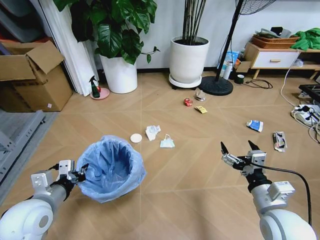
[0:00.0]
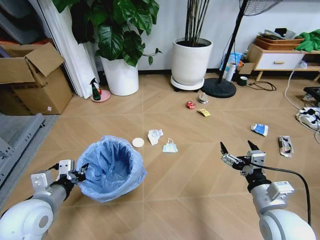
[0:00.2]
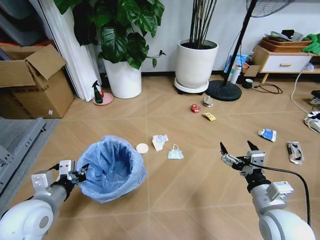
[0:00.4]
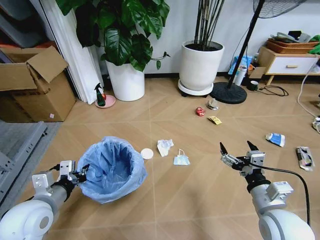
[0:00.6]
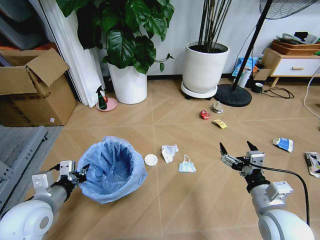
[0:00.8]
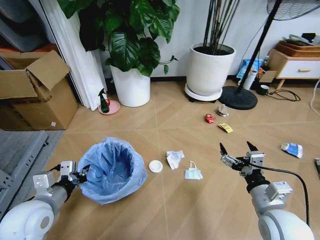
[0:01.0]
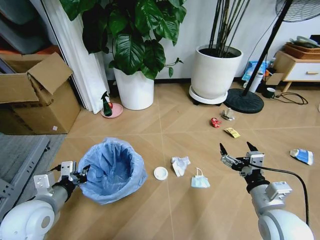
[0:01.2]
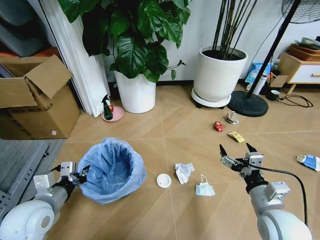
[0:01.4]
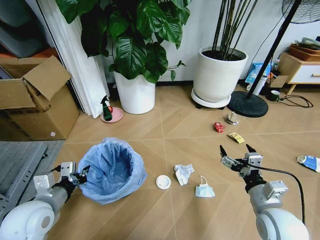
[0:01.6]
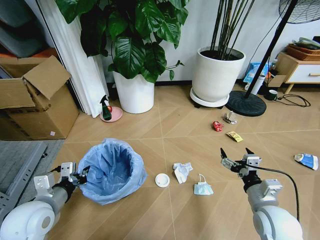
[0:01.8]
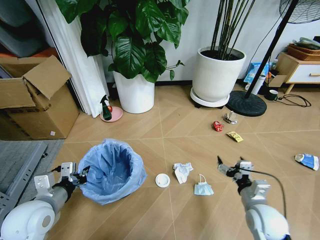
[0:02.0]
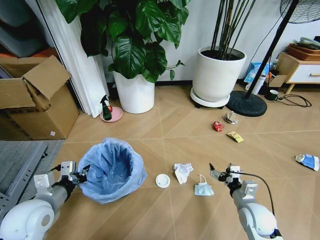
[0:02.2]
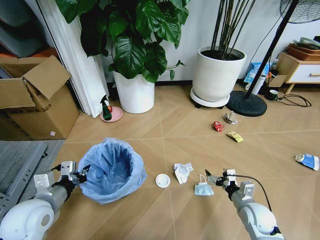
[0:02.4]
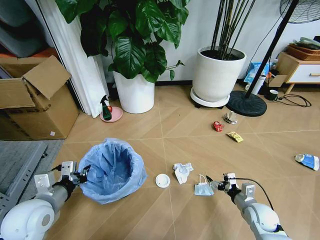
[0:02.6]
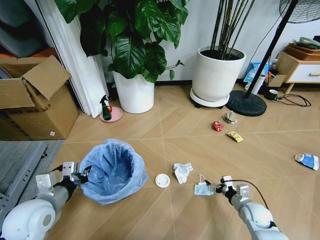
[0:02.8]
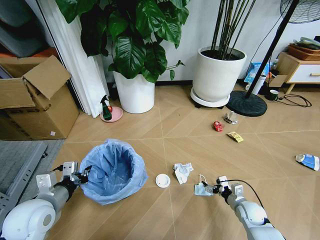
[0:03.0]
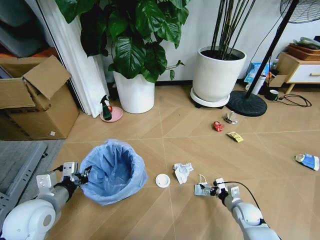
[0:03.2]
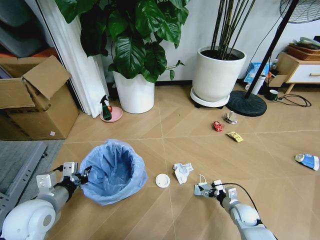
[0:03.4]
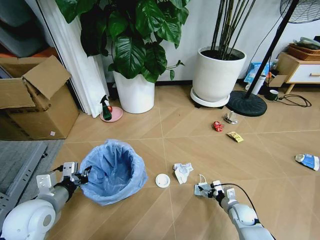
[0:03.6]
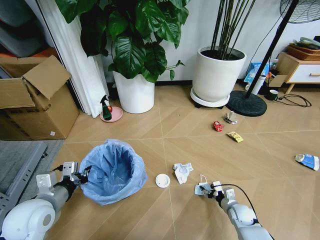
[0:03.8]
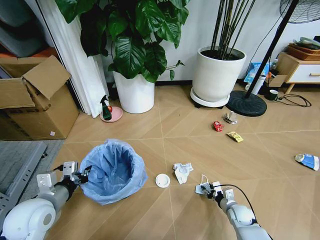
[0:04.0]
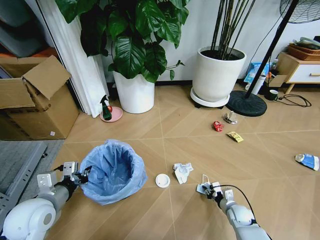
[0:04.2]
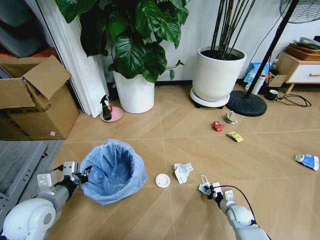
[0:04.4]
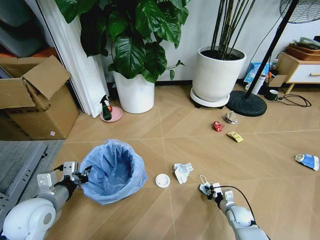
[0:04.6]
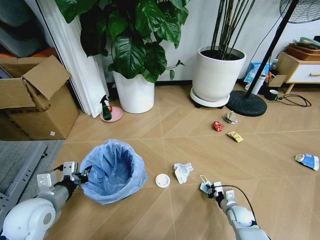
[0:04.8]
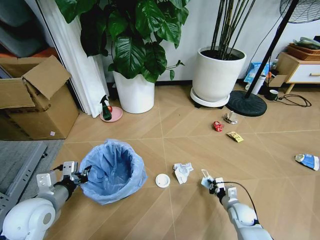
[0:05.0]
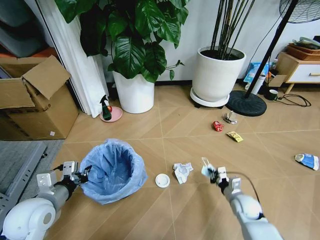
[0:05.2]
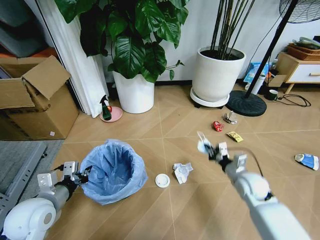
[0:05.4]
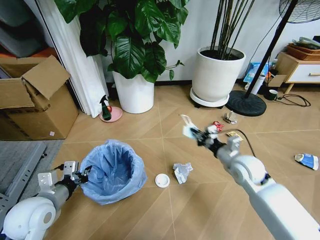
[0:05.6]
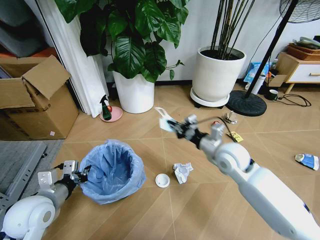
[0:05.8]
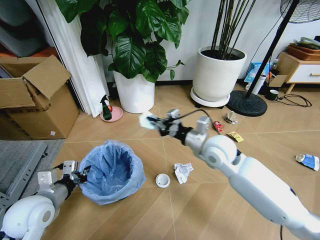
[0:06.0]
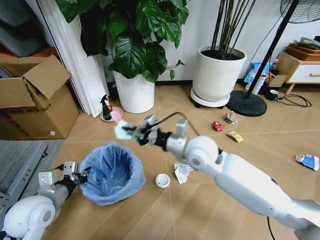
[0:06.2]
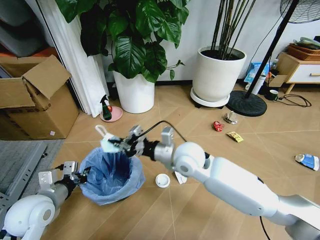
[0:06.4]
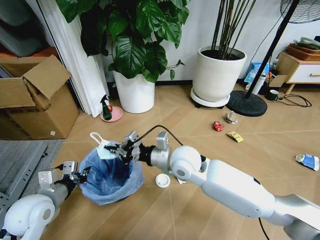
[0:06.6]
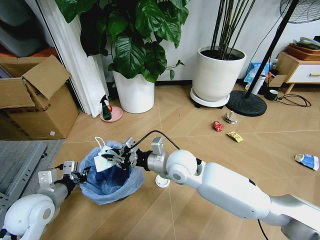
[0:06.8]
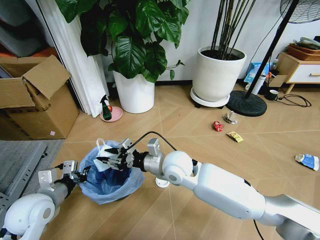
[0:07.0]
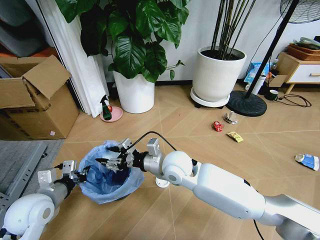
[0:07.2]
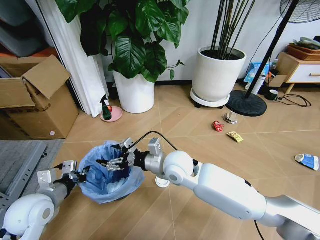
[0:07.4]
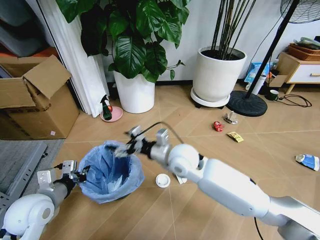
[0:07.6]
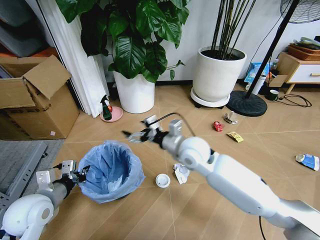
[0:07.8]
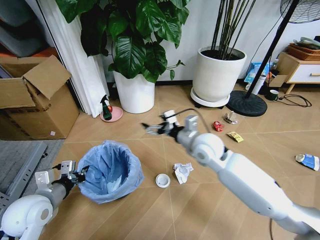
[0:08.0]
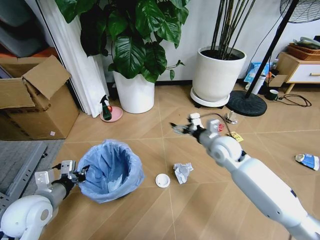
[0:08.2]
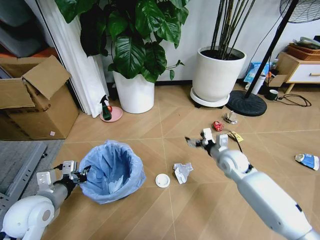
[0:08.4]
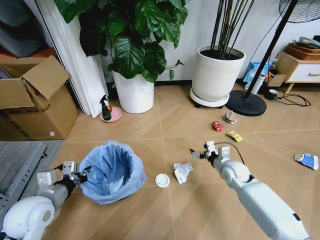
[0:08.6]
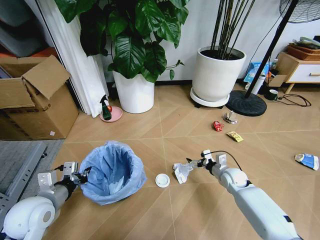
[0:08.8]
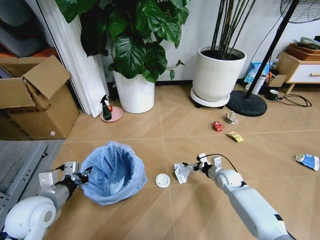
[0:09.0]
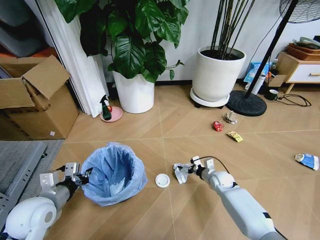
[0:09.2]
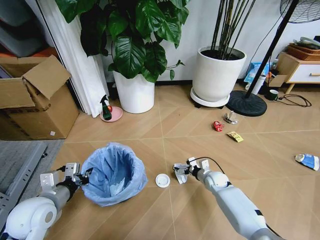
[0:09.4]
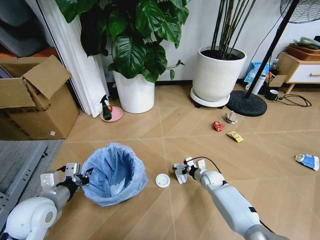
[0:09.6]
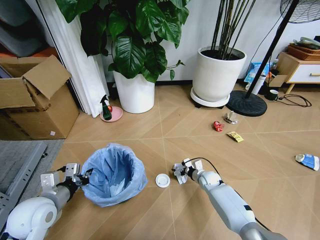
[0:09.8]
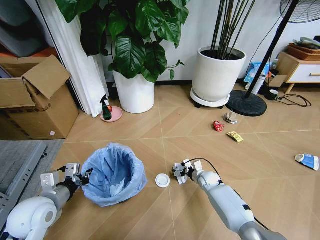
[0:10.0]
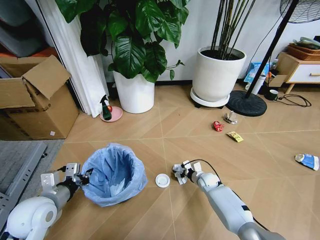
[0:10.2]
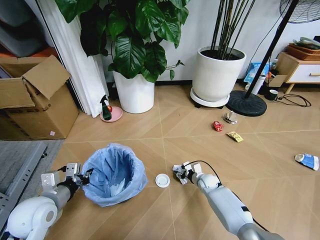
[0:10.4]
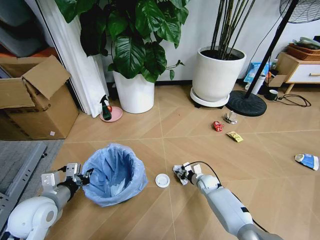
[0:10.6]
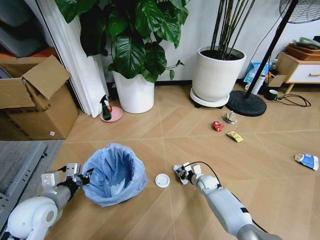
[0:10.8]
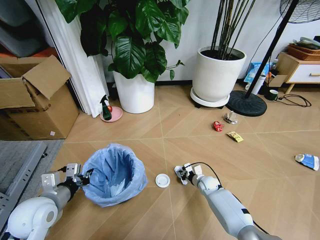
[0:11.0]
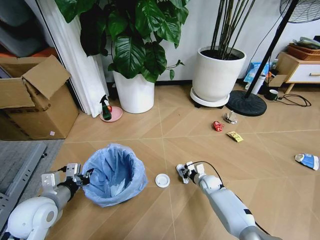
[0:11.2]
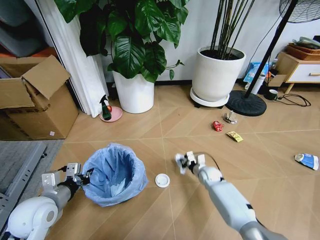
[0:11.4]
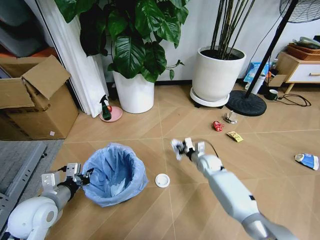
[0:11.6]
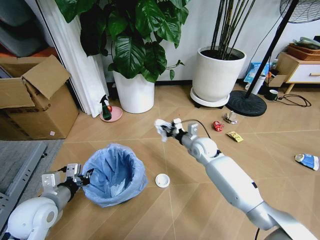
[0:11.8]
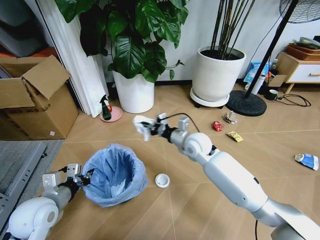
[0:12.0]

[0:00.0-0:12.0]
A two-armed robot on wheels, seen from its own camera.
Task of the whole recording: Pick up the trash bin and place the garbage on the floor into it.
0:01.6 to 0:03.0: The right gripper heads downward and forward, covering approximately 25 cm.
0:03.0 to 0:04.4: The right gripper travels downward by some 5 cm, and closes its fingers.
0:04.4 to 0:06.0: The right gripper shifts some 40 cm upward and to the left.
0:06.0 to 0:07.6: The right gripper moves to the left, about 10 cm, and opens.
0:07.6 to 0:09.0: The right gripper is displaced to the right and downward by about 35 cm.
0:09.0 to 0:10.4: The right gripper travels to the left and downward by approximately 10 cm, and closes up.
0:10.4 to 0:12.0: The right gripper moves upward, some 25 cm, and closes.

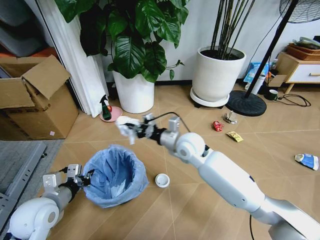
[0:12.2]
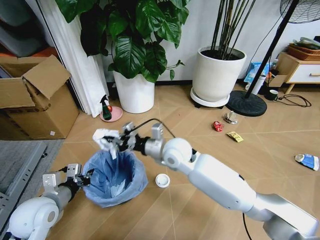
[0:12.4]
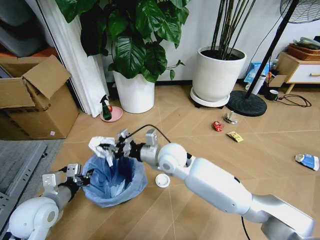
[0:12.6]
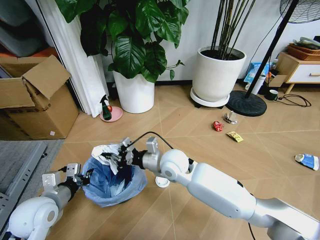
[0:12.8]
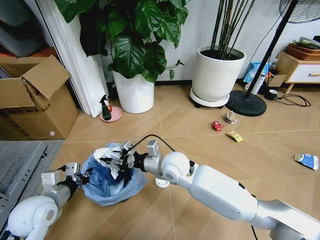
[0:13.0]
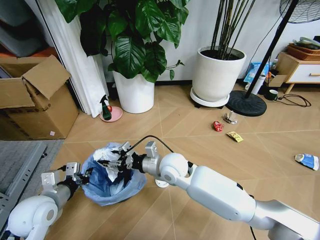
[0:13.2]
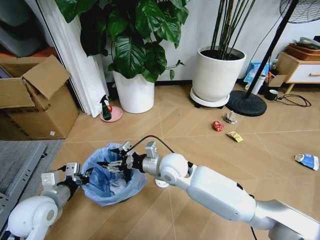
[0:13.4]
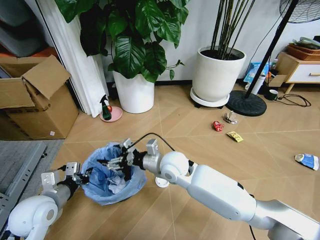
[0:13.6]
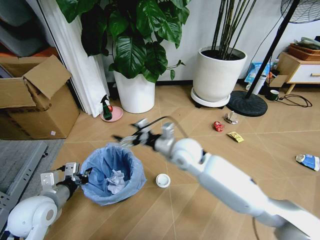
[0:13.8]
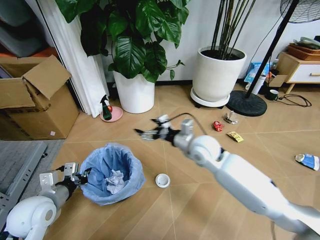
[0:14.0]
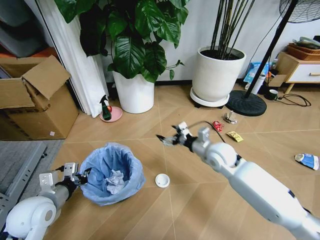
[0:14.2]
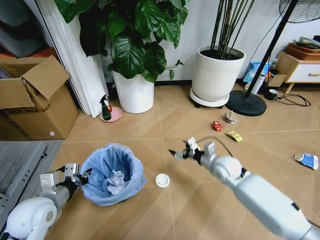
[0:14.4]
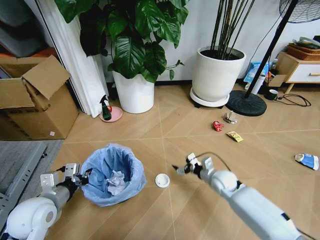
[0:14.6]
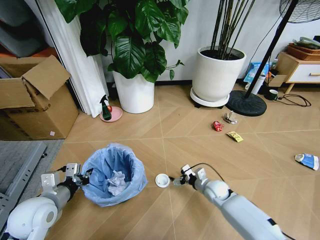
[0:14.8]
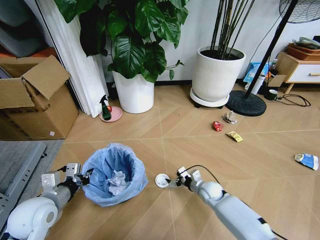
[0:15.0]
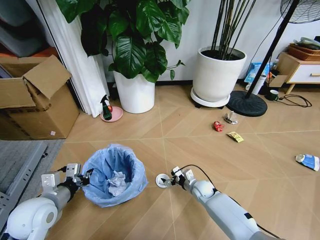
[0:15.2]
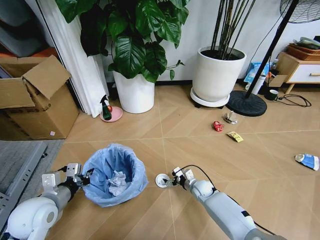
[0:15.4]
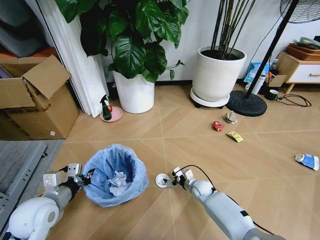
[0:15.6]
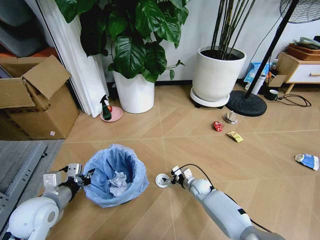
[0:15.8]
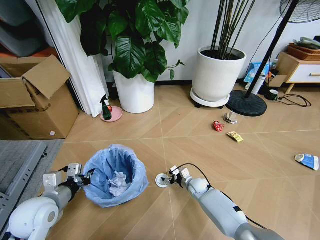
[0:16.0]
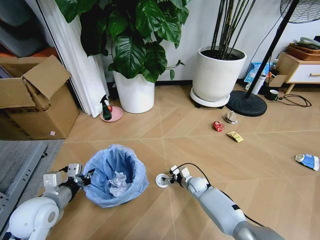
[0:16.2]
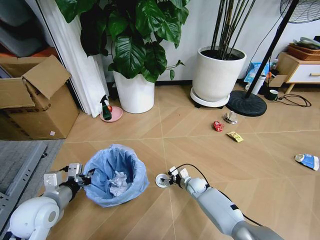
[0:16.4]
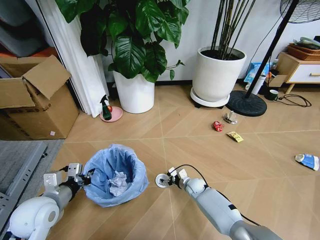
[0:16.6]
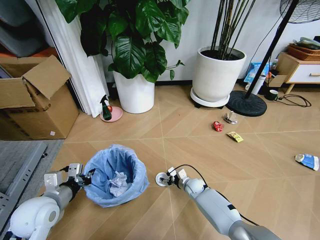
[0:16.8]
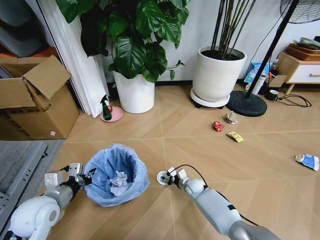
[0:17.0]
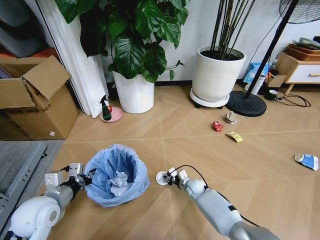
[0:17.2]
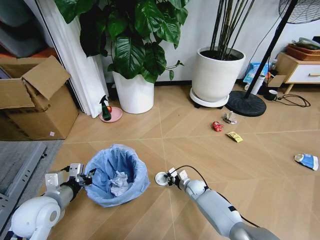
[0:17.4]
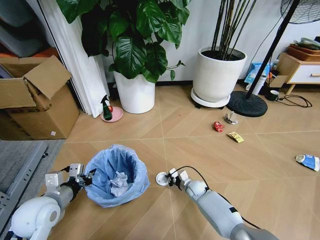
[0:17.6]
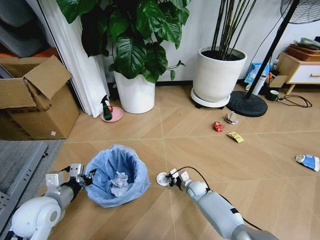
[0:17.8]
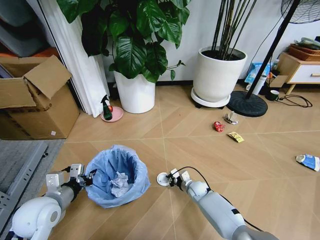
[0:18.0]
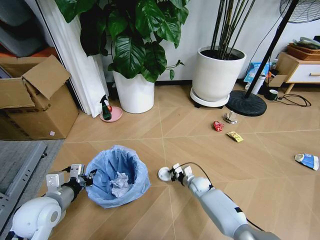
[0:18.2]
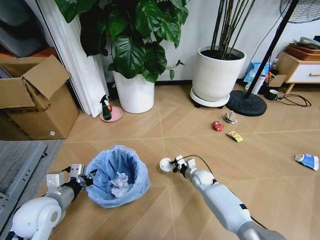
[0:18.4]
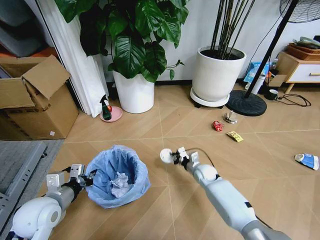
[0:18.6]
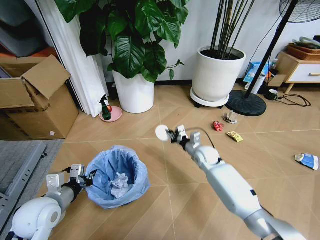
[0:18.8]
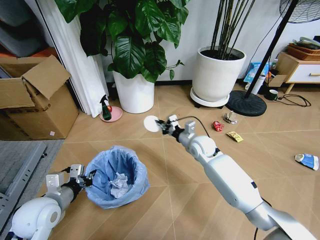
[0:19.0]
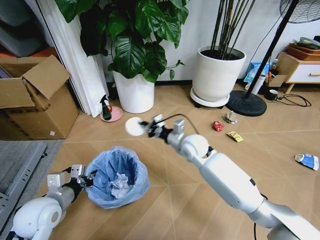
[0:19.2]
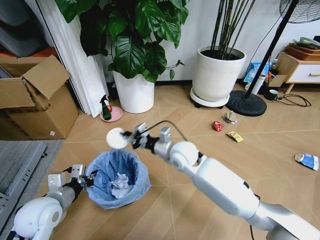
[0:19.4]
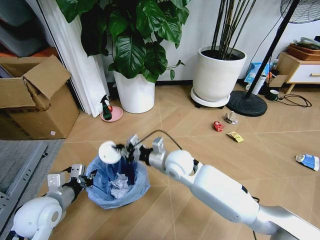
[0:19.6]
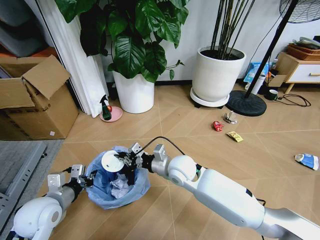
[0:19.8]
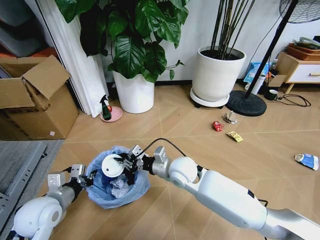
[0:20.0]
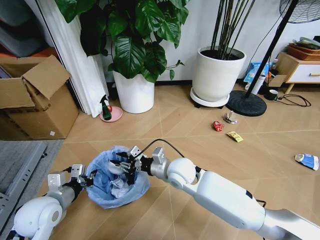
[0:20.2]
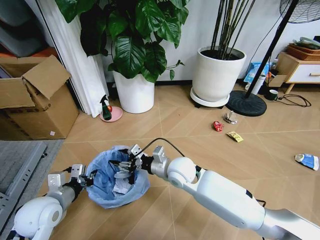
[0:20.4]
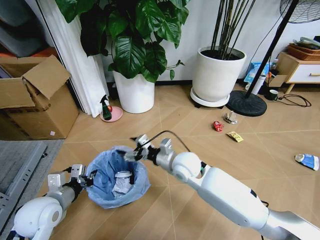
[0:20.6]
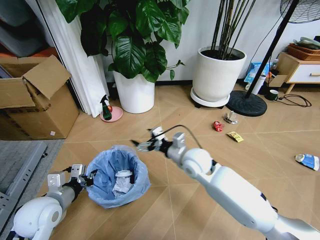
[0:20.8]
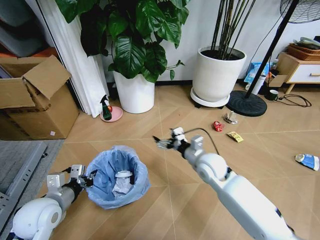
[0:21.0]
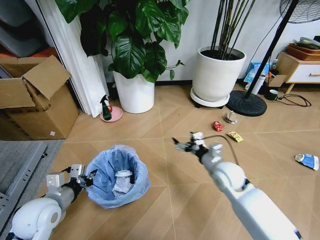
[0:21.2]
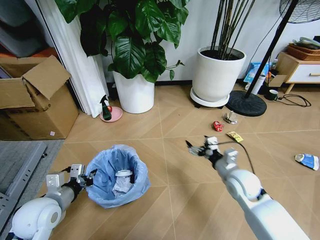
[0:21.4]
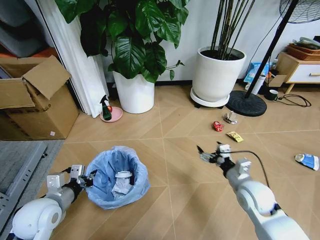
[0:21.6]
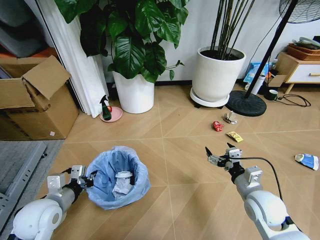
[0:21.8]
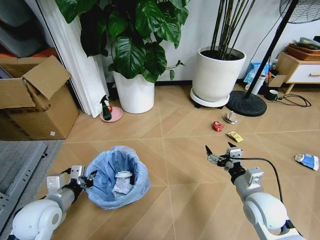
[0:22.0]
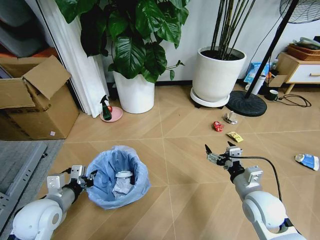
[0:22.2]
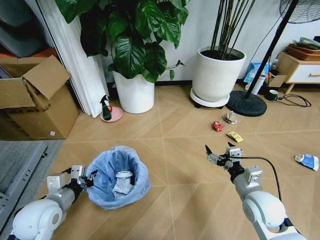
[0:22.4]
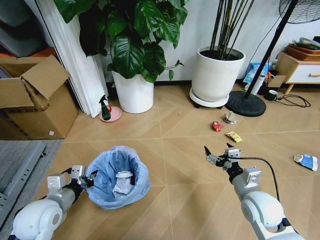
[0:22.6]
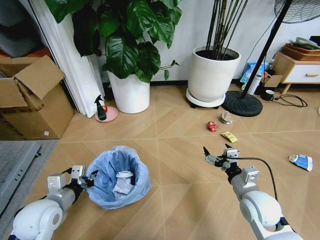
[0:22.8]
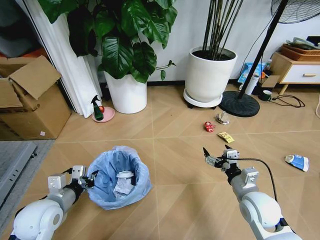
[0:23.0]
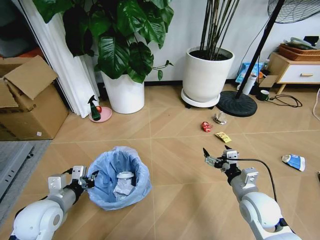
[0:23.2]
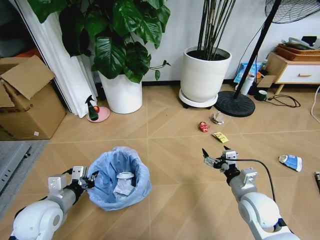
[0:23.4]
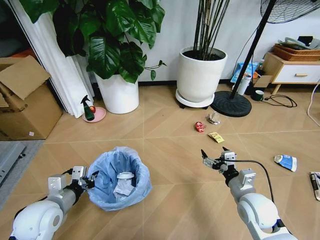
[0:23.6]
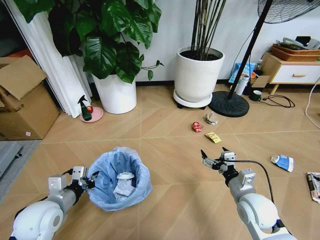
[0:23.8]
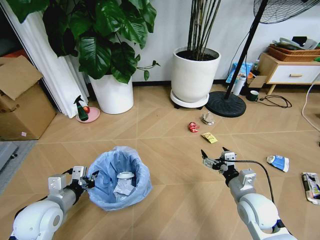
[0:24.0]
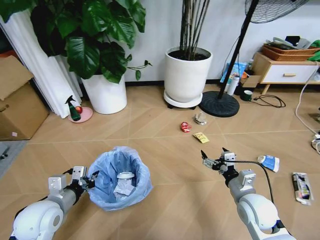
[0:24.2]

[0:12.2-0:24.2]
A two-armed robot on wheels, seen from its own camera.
Task of the whole recording: Pick up the trash bin and place the garbage on the floor into it.
0:12.2 to 0:13.8: The right gripper opens up.
0:13.8 to 0:15.2: The right gripper heads downward and to the right, covering about 30 cm.
0:15.2 to 0:16.6: The grippers stay close to where they were, moving slightly.
0:16.6 to 0:18.2: The right gripper closes.
0:18.2 to 0:19.8: The right gripper is displaced upward and to the left by roughly 30 cm.
0:19.8 to 0:21.2: The right gripper heads to the right, covering approximately 15 cm, and opens up.
0:21.2 to 0:22.6: The right gripper heads backward and to the right, covering approximately 15 cm.
